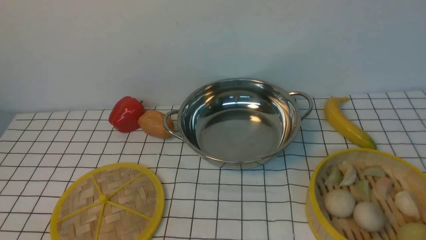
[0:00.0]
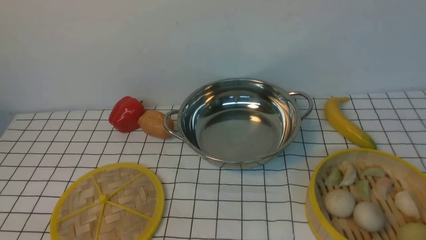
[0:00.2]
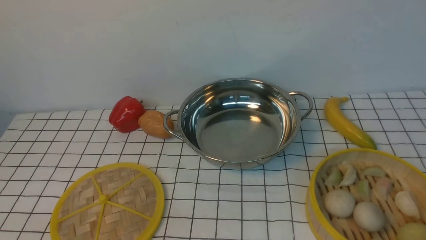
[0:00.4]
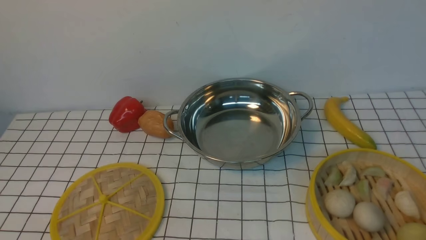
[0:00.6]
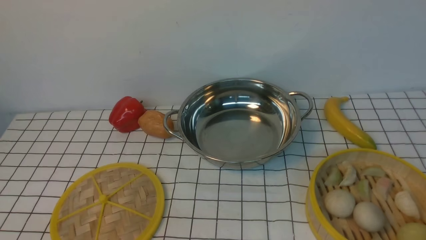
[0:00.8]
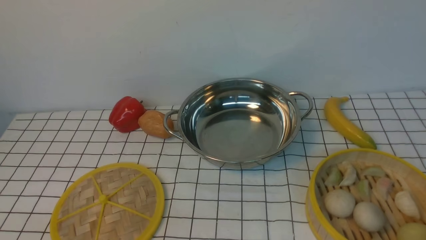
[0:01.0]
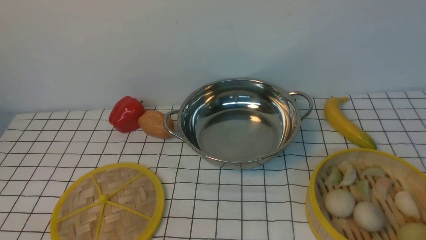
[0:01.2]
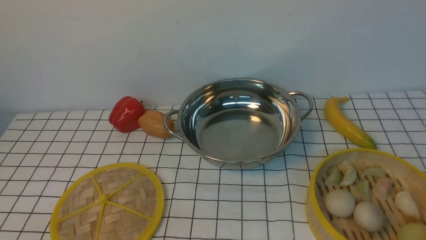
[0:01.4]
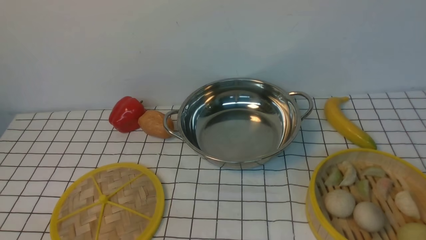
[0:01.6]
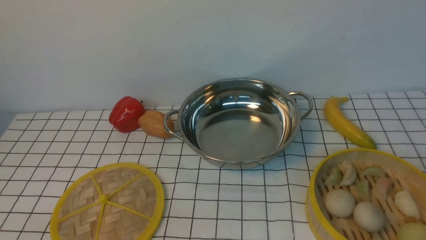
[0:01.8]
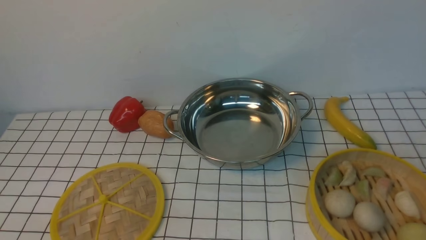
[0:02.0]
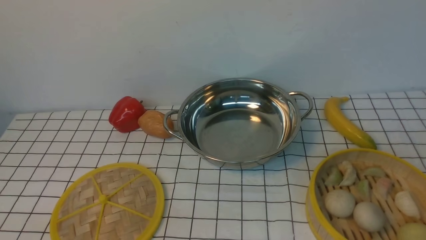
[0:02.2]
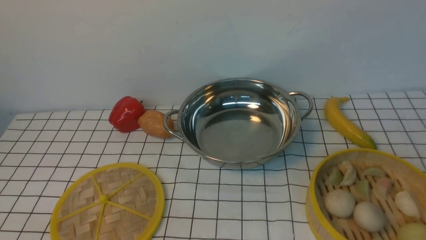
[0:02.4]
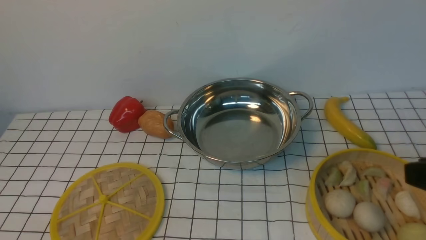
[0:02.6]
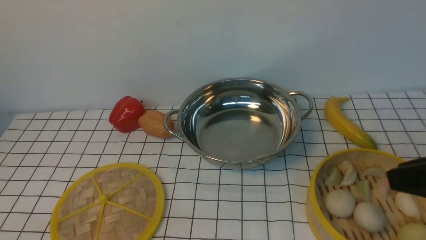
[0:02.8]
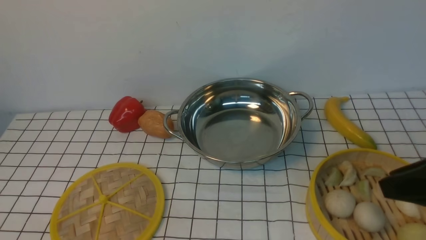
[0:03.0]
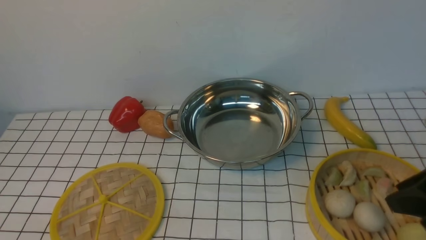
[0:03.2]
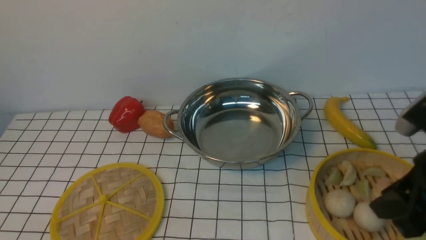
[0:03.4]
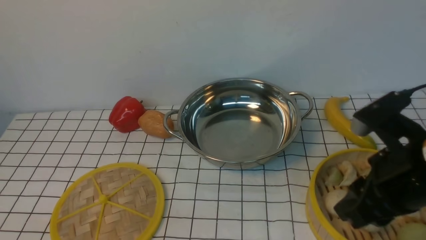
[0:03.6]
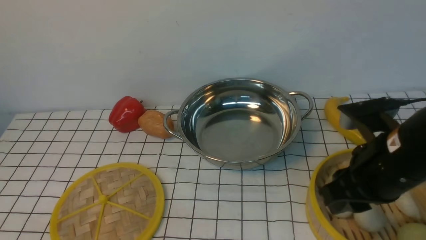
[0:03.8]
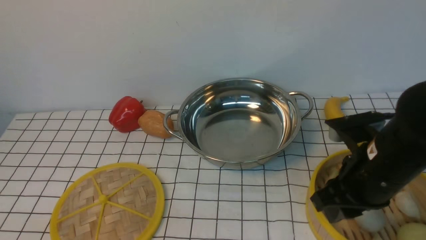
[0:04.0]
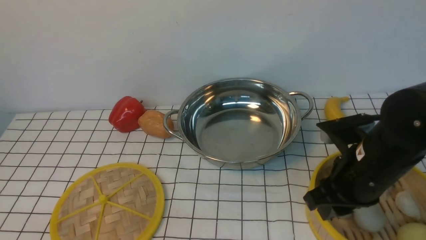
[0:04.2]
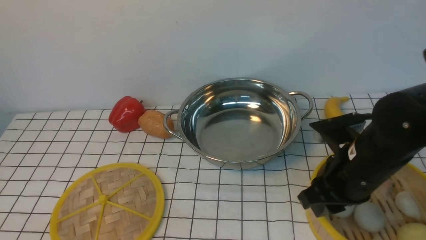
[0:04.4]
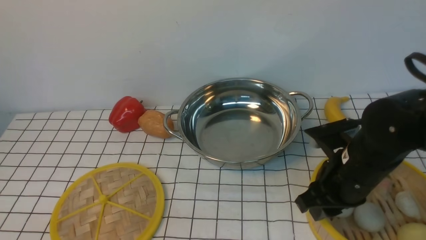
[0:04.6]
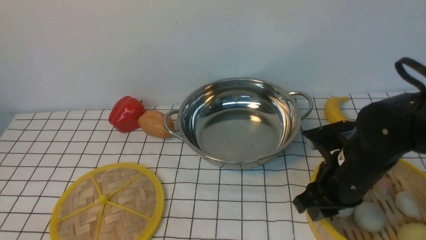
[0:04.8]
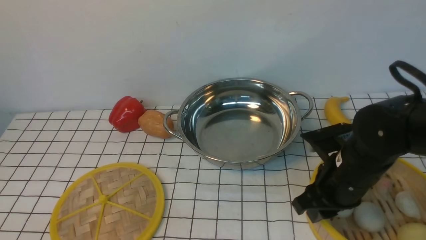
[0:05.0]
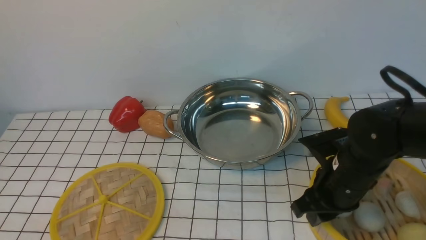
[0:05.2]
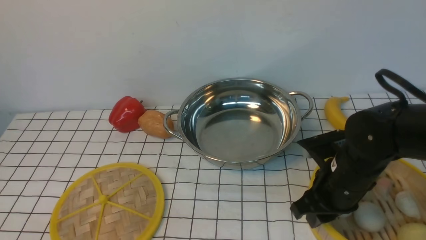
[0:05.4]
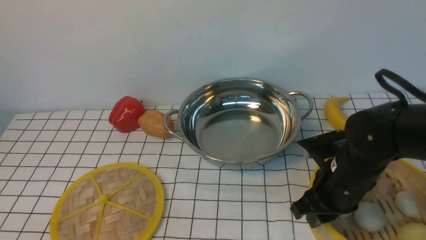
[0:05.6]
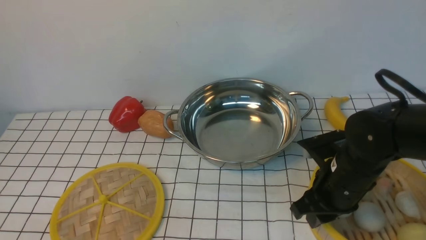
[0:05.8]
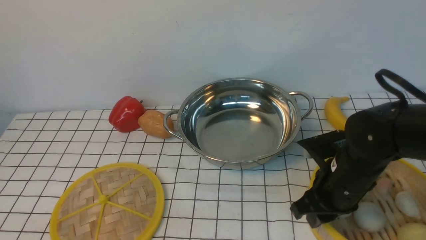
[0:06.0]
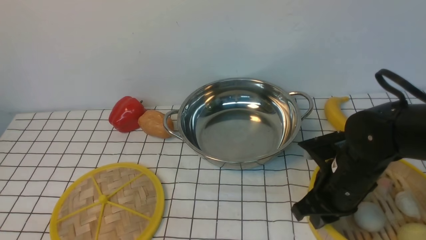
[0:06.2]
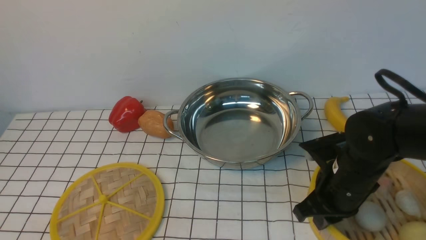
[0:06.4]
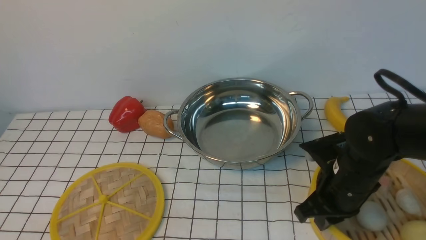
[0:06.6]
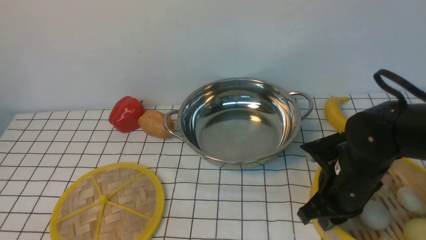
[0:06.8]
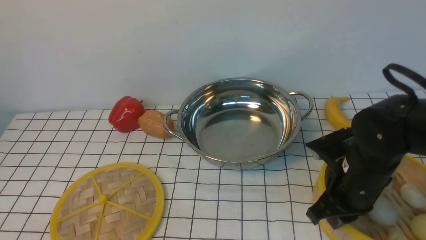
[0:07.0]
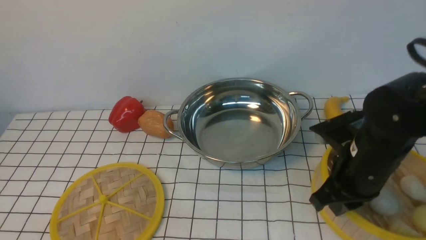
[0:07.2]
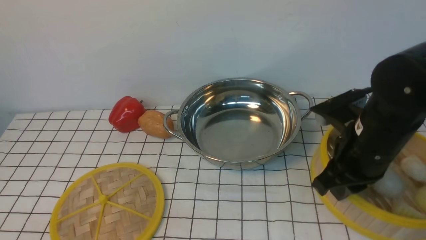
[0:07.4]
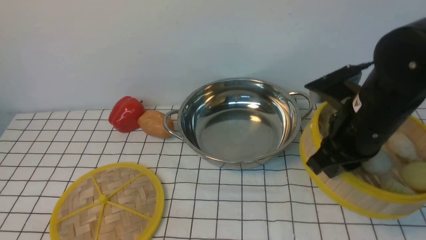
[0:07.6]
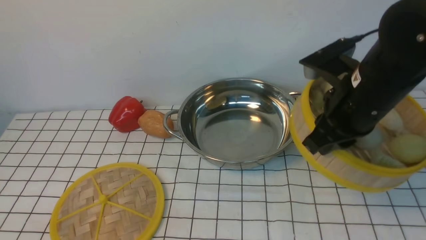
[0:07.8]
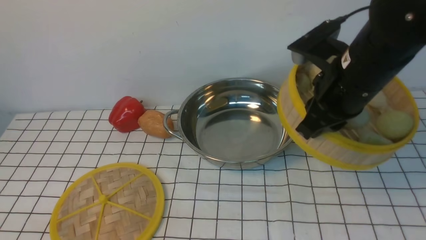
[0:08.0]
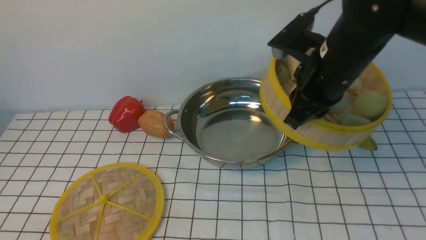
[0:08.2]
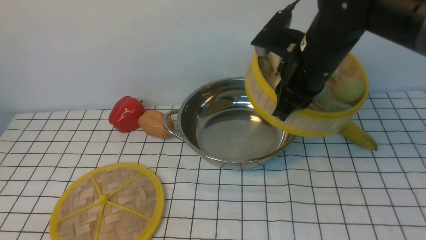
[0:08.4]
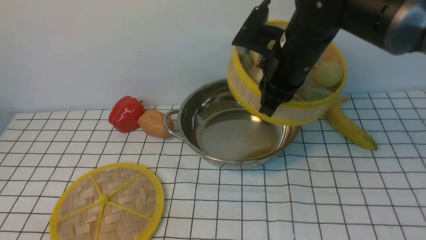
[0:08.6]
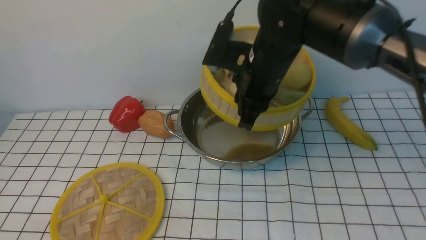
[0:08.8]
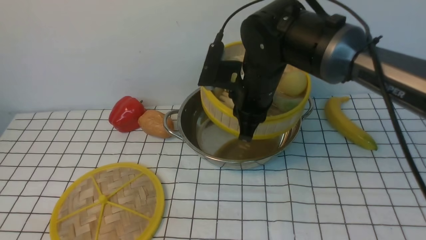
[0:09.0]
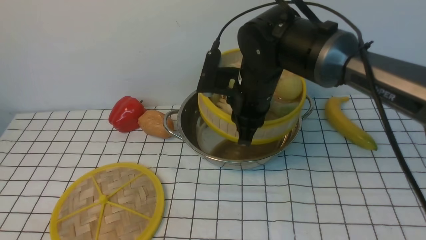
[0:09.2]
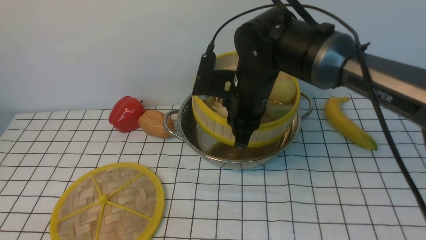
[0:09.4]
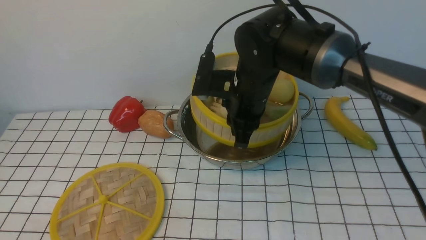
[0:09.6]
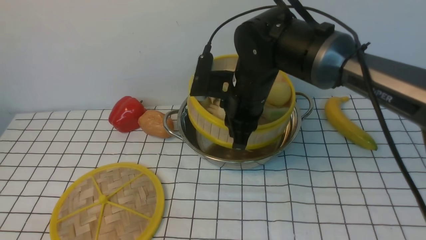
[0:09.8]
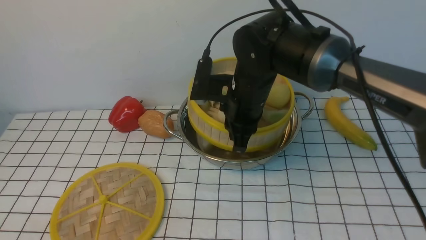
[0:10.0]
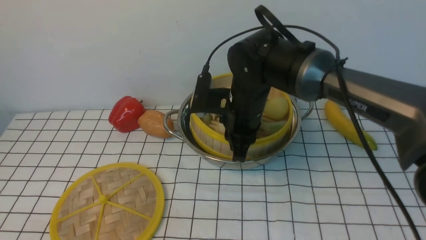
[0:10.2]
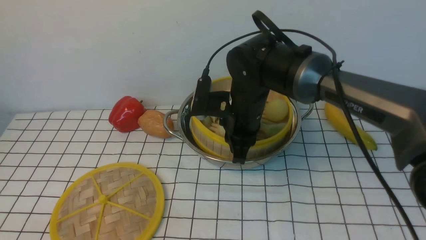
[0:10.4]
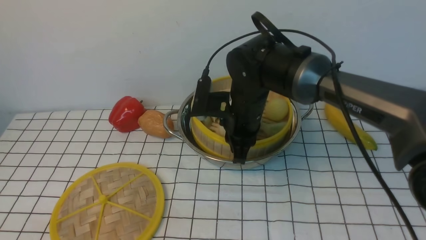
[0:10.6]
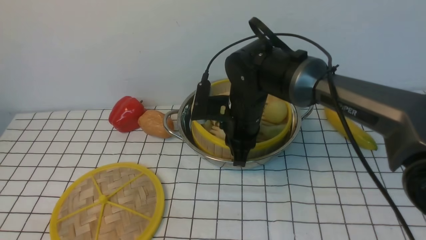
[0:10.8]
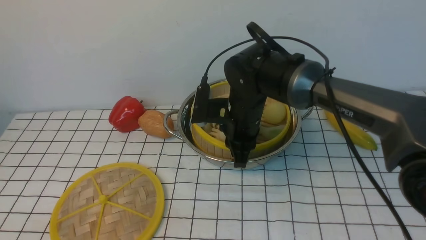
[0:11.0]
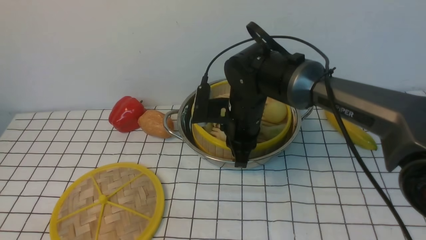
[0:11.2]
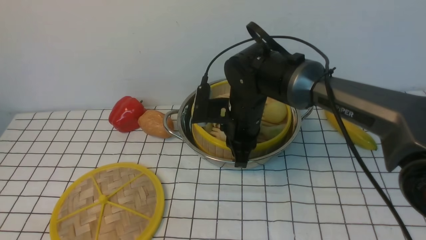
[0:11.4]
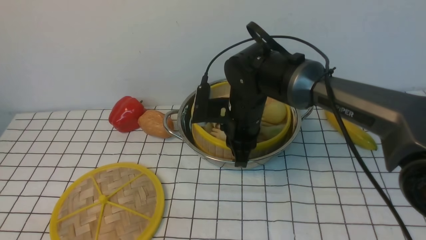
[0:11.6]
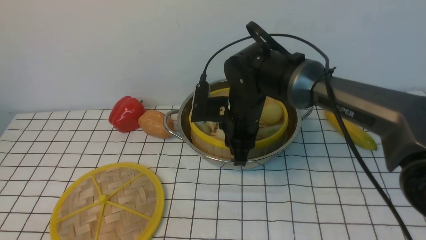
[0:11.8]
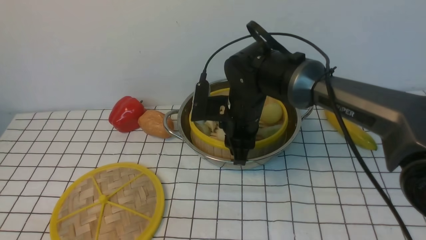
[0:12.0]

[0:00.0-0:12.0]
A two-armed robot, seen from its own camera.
Task of the whole recording: place the steamer in the pot on the white tablecloth, and put the lid on the steamer.
Step, 0:00.0 to 0:07.0: use the right arm to lift the steamer closest to it.
0:01.6 to 0:03.0: The right gripper travels upward, forward and to the left by approximately 15 cm.
0:03.0 to 0:04.4: The right gripper is displaced downward, forward and to the left by some 15 cm.
0:04.4 to 0:06.0: The right gripper changes place by approximately 5 cm.
0:06.0 to 0:07.6: The right gripper goes approximately 10 cm upward.
0:07.6 to 0:09.0: The right gripper shifts about 15 cm to the left and forward.
0:09.0 to 0:10.4: The right gripper travels downward by roughly 5 cm.
0:10.4 to 0:12.0: The grippers move only a little.

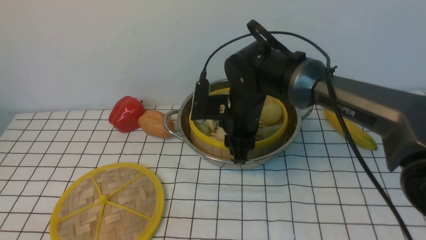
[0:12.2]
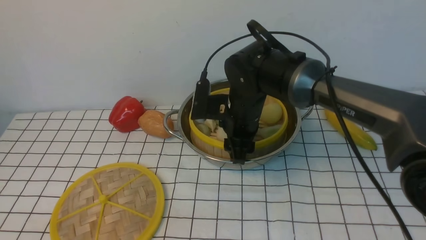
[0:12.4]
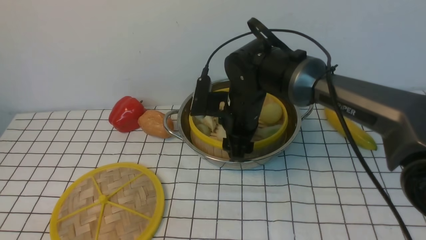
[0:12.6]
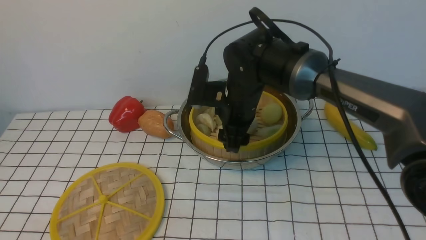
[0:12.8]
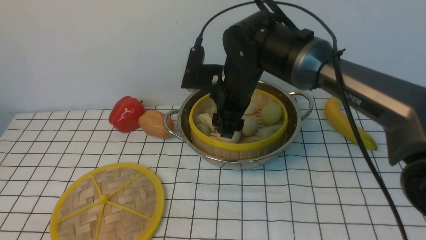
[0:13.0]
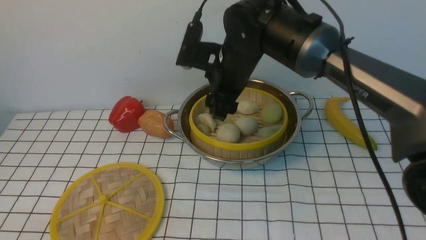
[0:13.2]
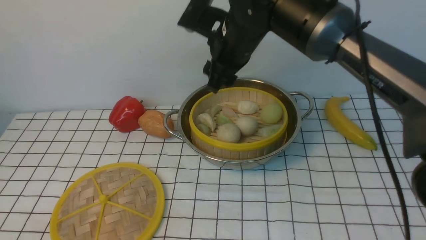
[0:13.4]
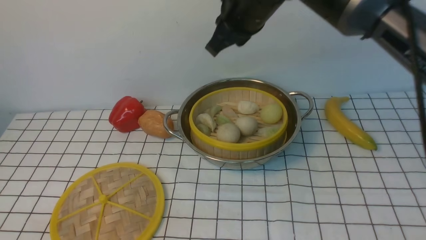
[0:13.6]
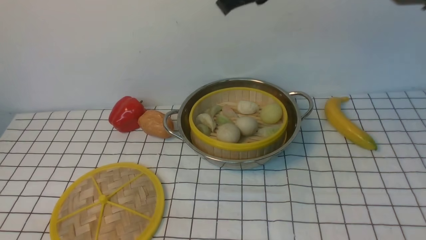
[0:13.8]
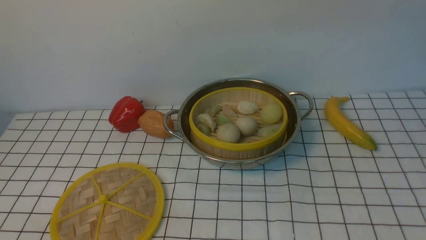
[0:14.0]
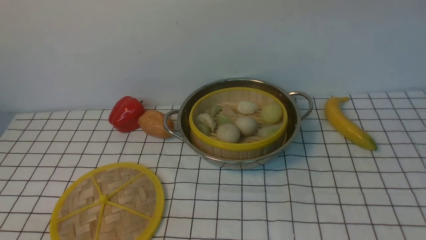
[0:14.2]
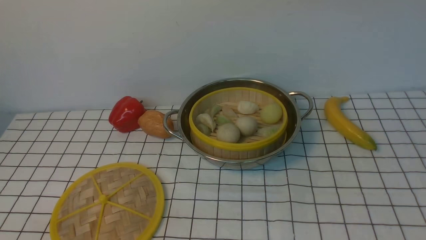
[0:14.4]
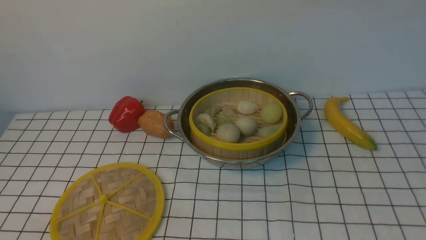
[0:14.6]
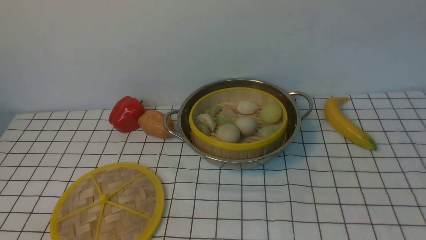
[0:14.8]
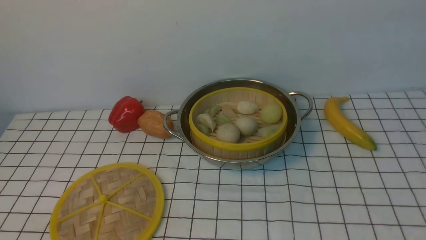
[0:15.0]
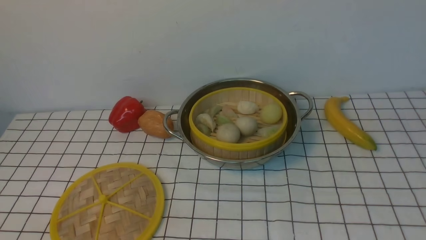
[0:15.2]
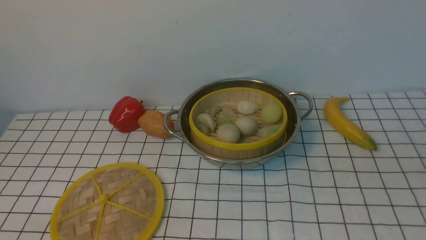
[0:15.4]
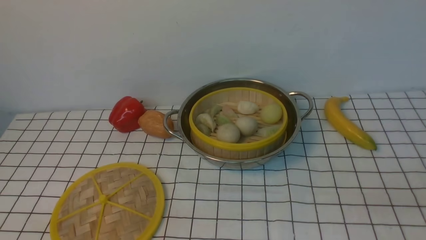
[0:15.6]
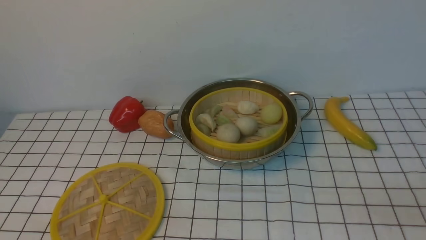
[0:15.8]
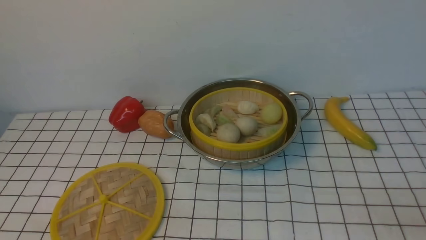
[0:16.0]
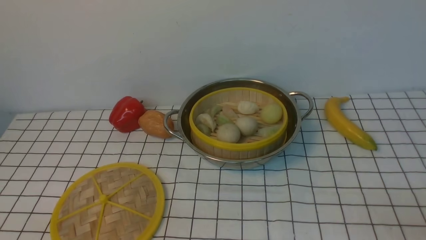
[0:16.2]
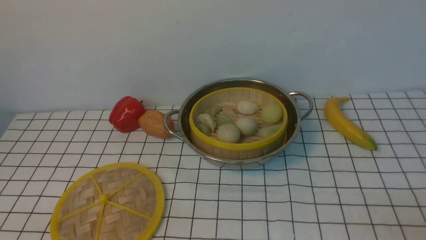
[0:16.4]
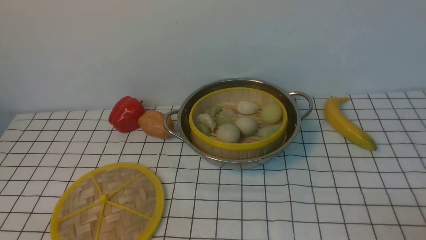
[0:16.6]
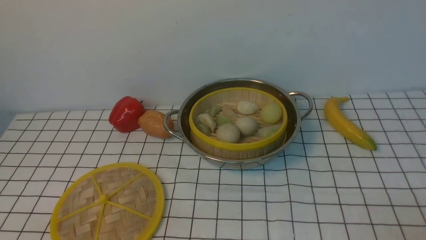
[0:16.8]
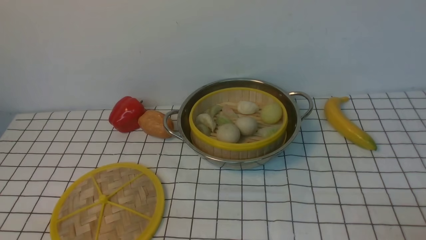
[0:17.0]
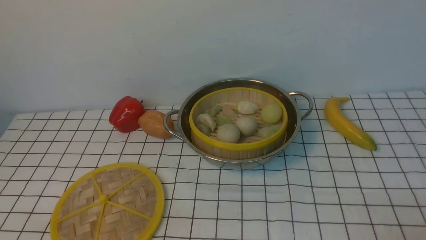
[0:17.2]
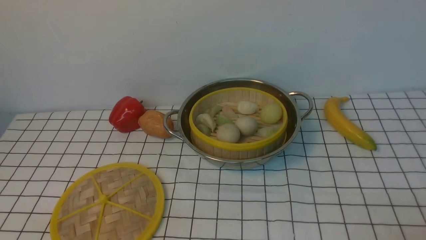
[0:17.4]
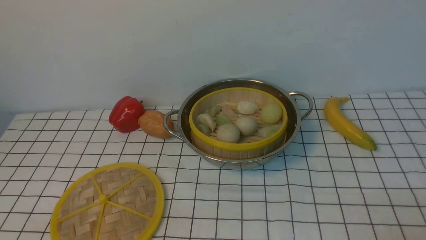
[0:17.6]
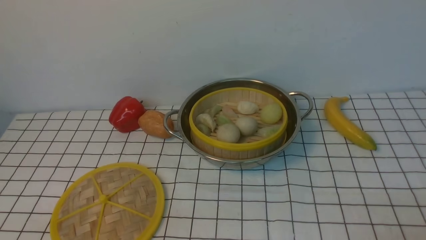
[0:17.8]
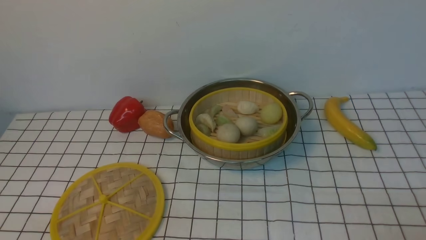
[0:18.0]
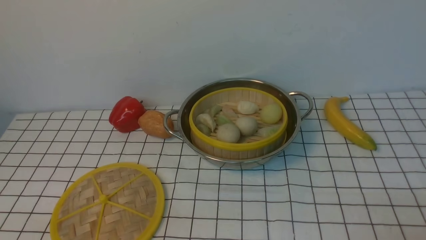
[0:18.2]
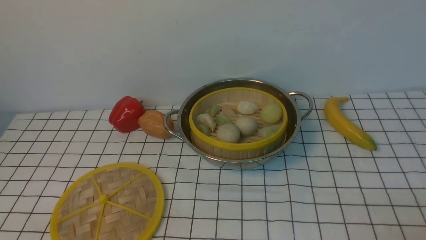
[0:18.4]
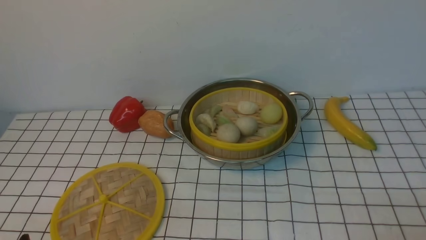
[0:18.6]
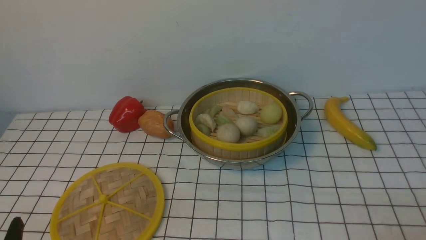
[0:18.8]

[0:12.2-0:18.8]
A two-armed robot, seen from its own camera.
Task of the whole recording: place the steamer in the pot on the white tablecloth, and put the lid on the steamer.
0:12.2 to 0:13.8: The right gripper heads upward, covering about 20 cm, and closes.
0:13.8 to 0:15.4: The right gripper heads to the right and backward, covering approximately 35 cm.
